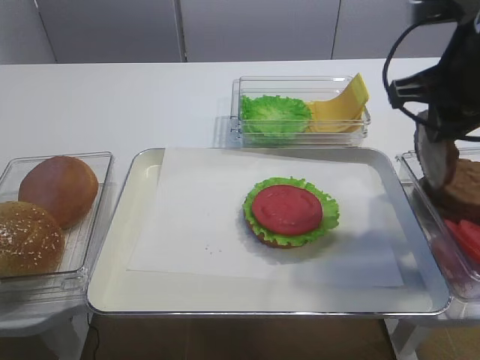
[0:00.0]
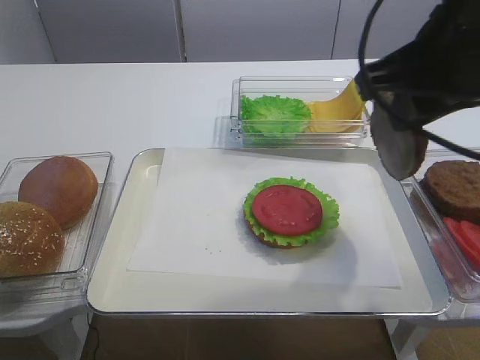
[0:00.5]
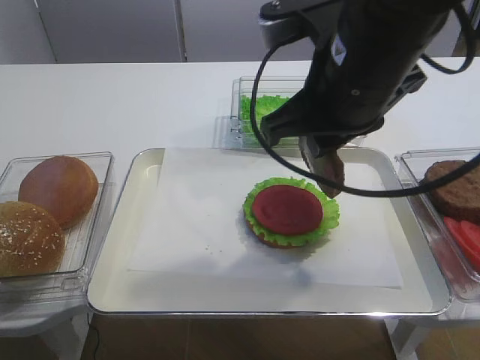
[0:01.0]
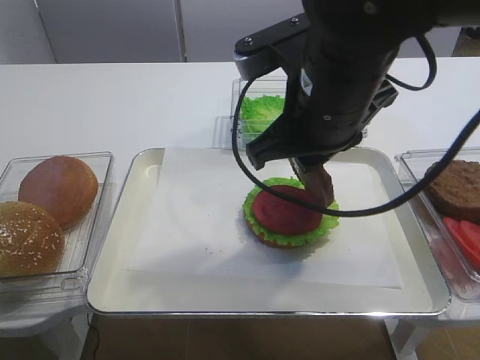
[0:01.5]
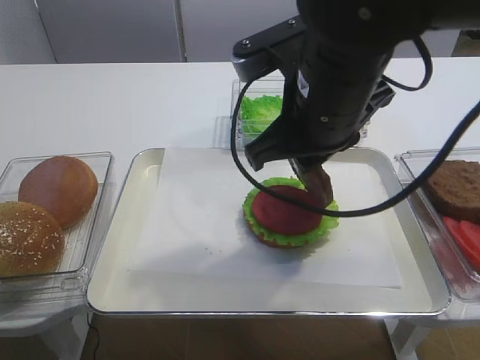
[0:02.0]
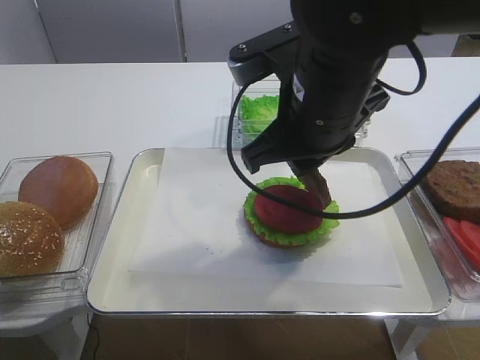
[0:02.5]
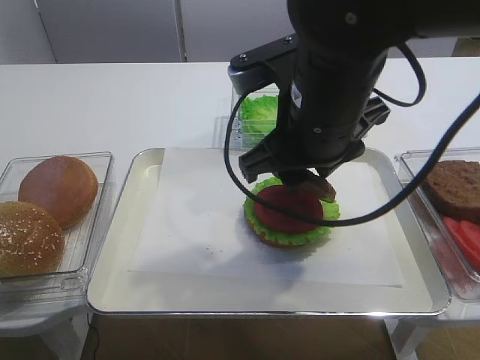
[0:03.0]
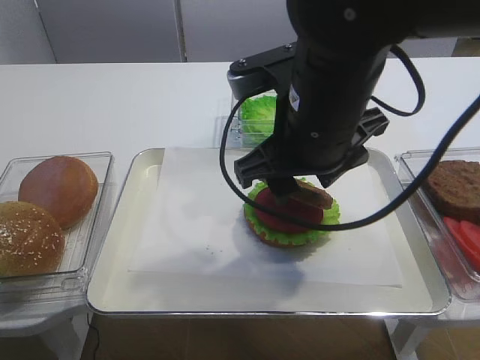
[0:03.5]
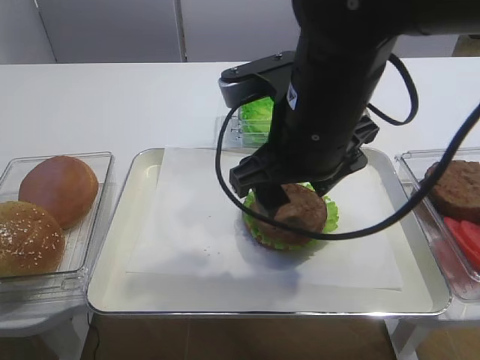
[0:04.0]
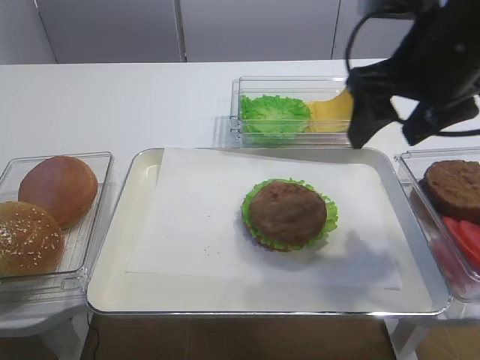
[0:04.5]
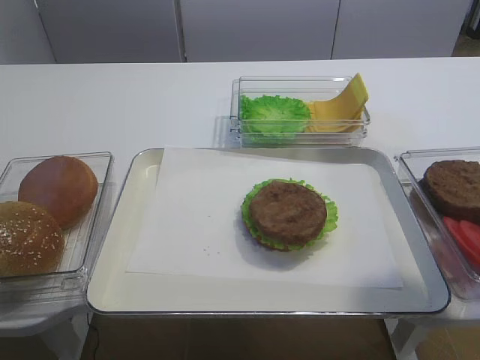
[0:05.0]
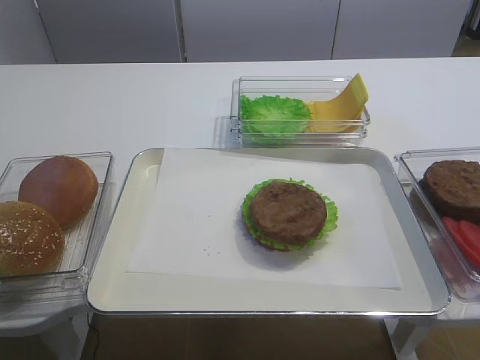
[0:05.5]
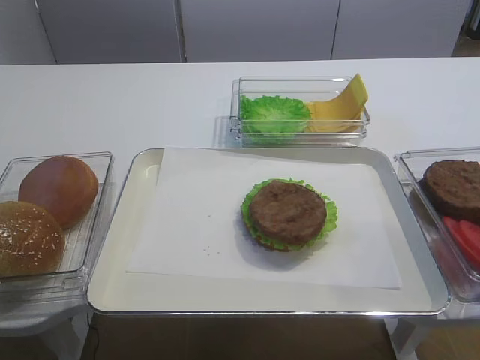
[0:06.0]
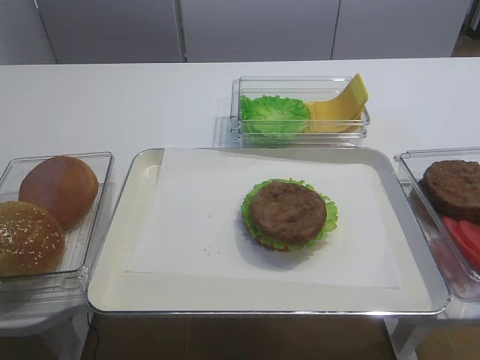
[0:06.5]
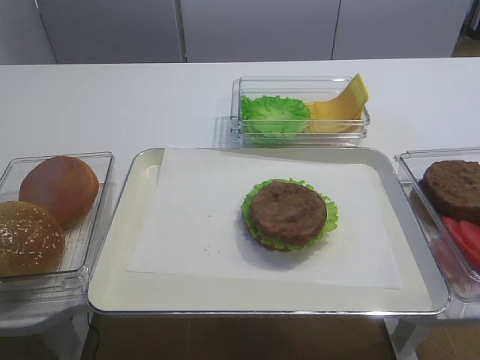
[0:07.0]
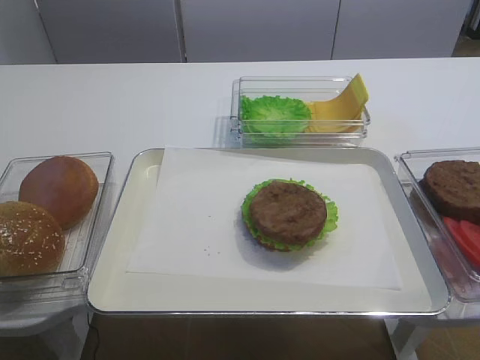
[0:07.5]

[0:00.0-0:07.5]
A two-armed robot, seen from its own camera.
Step, 0:00.5 to 0:03.5: Place the cutlet on the tomato slice with the right gripper.
0:00.0 to 0:02.0: The right gripper heads to the left, covering about 15 cm.
0:02.0 to 0:04.0: The right gripper opens its fingers.
0:04.0 to 0:05.5: The right gripper moves to the right, backward and upward, approximately 25 cm.
